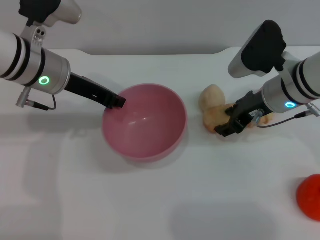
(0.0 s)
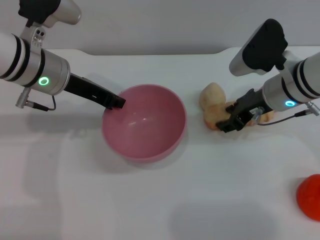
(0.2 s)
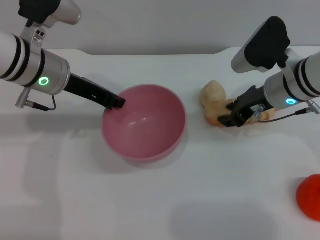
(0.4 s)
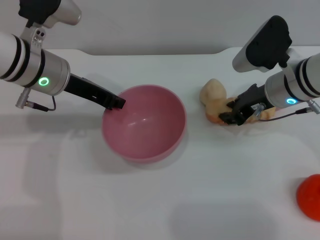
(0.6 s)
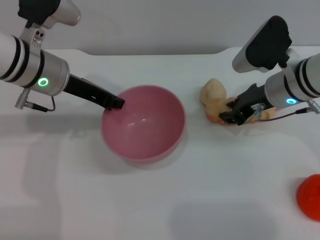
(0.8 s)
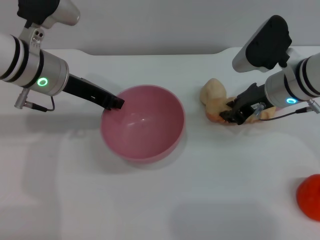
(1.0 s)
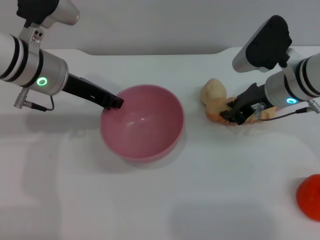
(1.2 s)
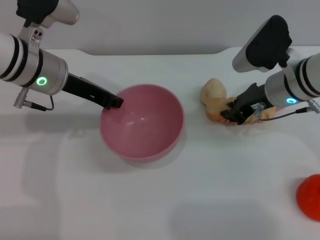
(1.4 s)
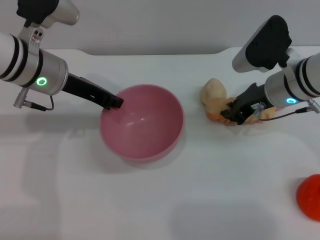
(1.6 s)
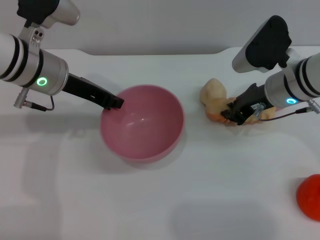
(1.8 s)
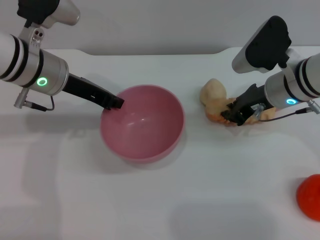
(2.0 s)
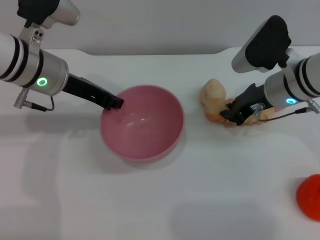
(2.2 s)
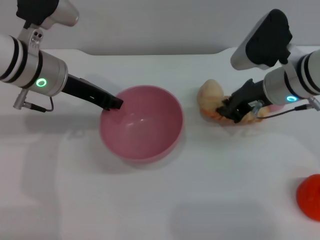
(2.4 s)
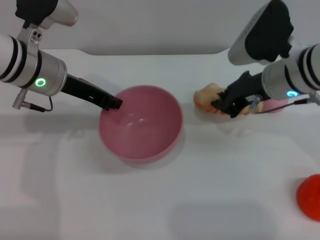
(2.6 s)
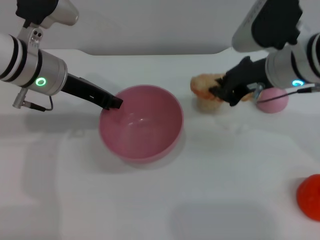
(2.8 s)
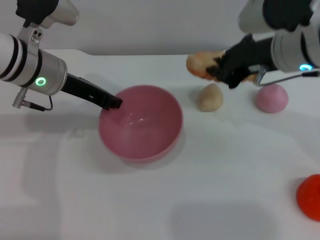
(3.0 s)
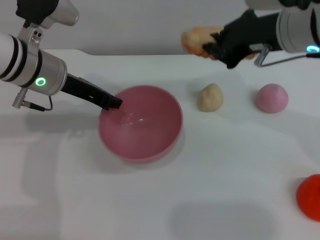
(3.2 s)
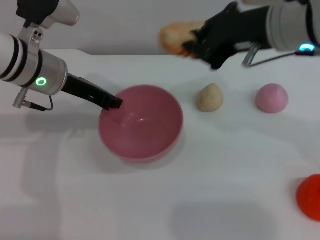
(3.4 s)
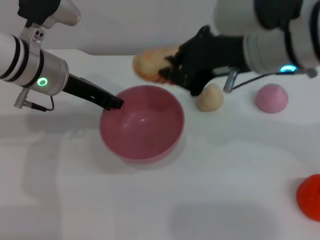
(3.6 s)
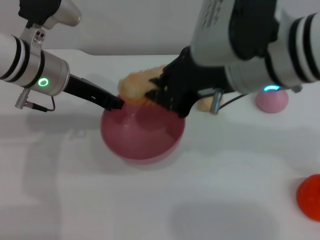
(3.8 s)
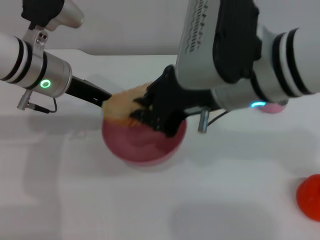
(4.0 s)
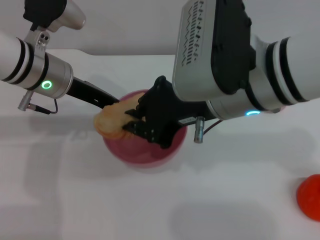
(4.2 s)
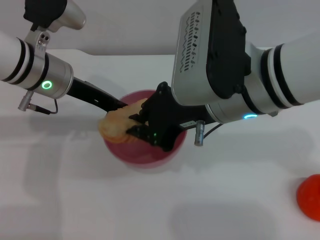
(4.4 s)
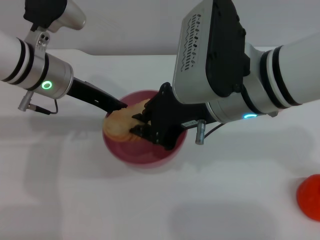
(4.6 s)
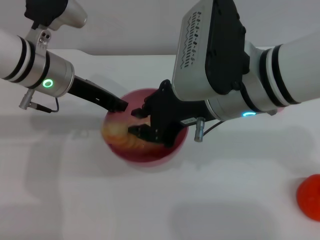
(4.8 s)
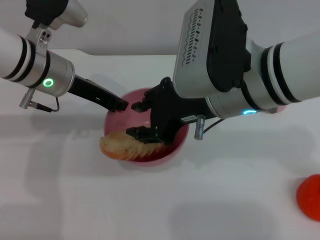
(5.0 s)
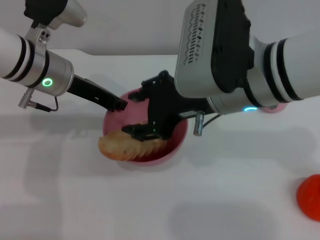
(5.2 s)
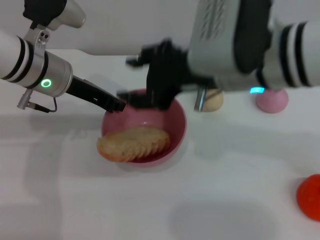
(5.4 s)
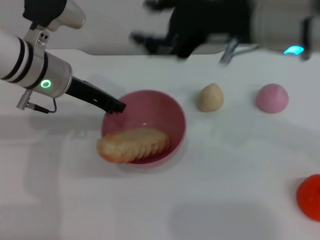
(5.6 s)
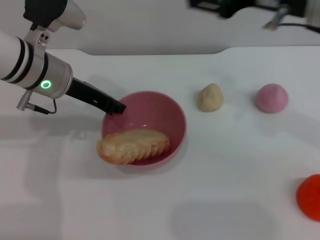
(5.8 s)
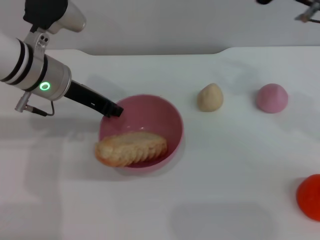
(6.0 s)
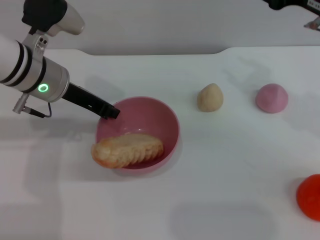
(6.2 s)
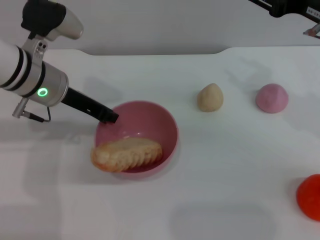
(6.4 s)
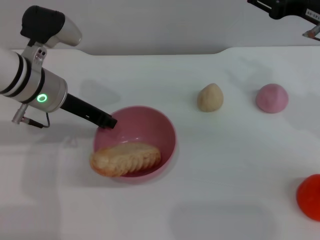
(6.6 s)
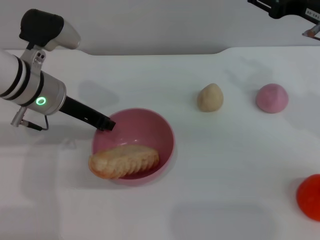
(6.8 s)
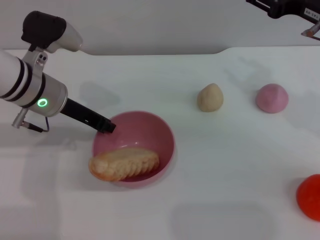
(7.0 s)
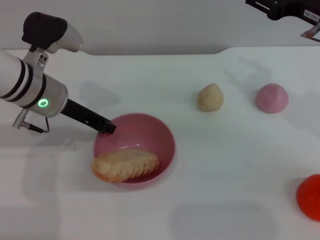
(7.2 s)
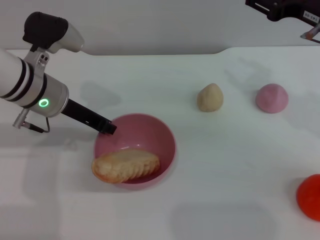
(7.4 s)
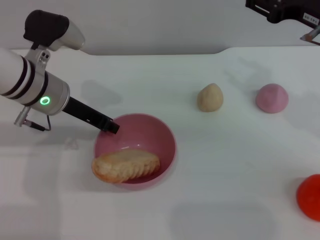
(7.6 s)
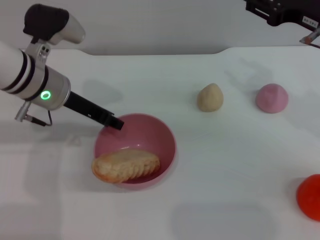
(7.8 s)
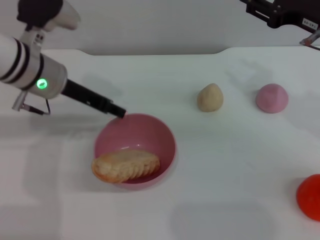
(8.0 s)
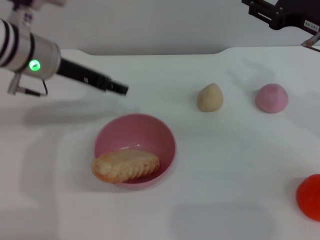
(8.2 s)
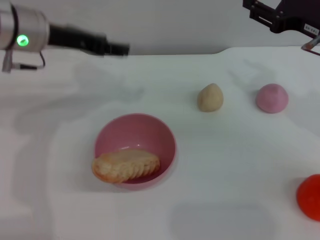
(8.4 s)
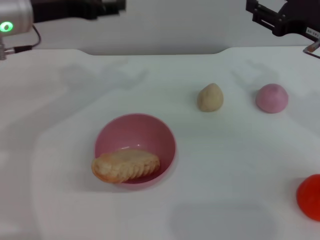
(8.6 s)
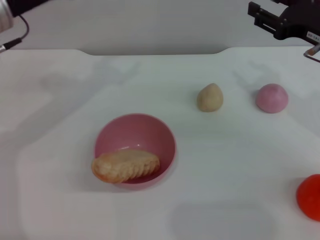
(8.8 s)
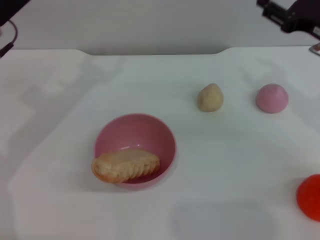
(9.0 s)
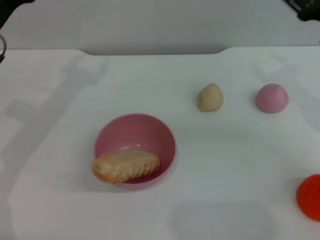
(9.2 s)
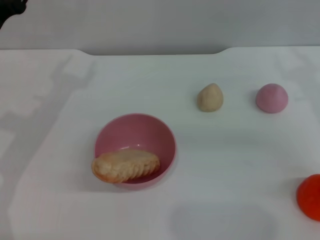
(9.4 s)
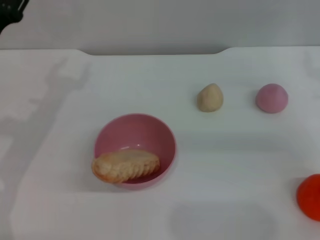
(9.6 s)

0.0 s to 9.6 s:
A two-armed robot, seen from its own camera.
Task of the whole recording: put the bread into the pink bowl and pour it out repeatedly.
Step, 0.0 to 3.0 s: Pick up the bread with the right gripper.
Step, 3.4 to 5.2 s: Place the bread into the bowl.
Step, 5.4 to 8.0 s: Place the bowl on the table.
0.0 to 1.6 s: The right gripper closes.
1.6 to 3.2 s: The right gripper heads upward, covering roughly 15 cm.
3.2 to 4.8 s: The right gripper moves to the left, roughly 10 cm.
4.8 to 6.4 s: The right gripper is displaced to the right by roughly 15 cm, and opens up.
6.4 to 8.0 s: The left gripper opens.
8.0 to 9.6 s: The right gripper moves to the right and downward, some 10 cm. Meanwhile the left gripper travels to the left and backward by approximately 10 cm, and opens up.
